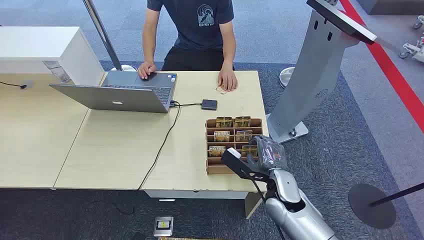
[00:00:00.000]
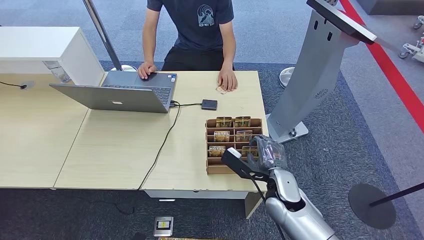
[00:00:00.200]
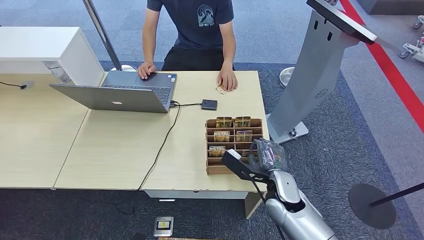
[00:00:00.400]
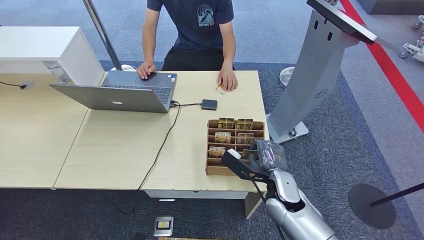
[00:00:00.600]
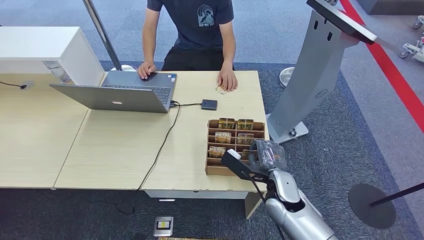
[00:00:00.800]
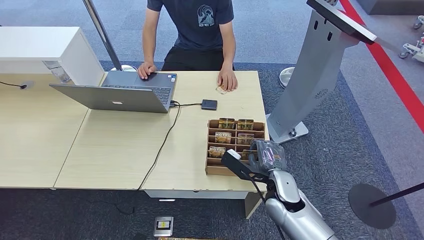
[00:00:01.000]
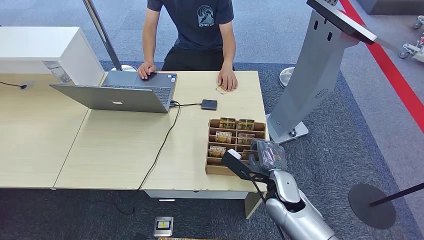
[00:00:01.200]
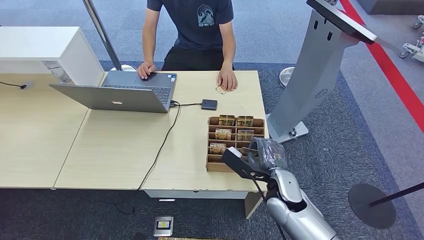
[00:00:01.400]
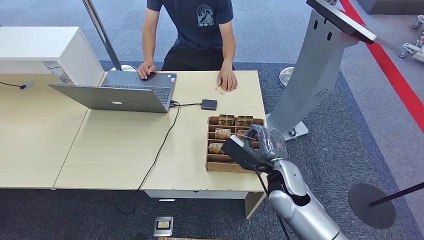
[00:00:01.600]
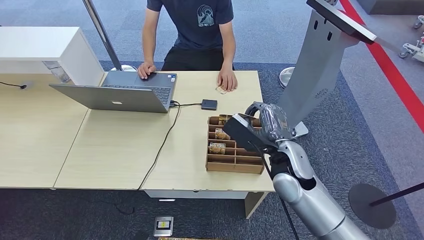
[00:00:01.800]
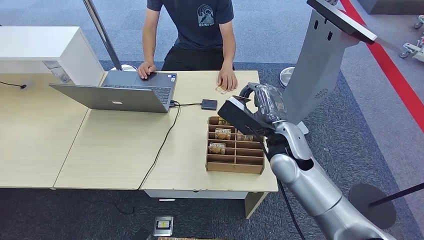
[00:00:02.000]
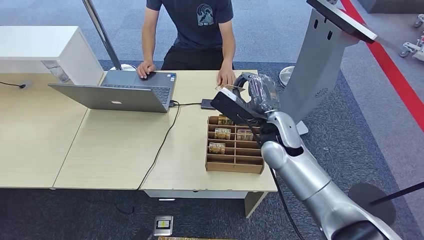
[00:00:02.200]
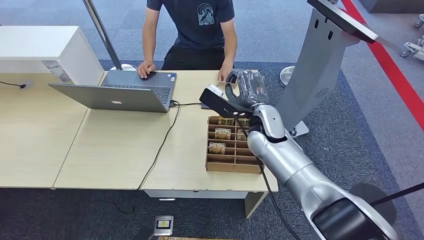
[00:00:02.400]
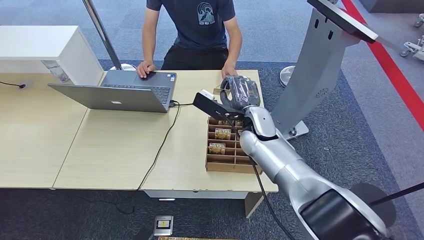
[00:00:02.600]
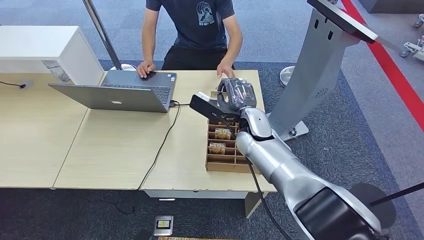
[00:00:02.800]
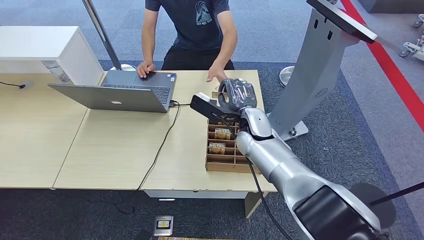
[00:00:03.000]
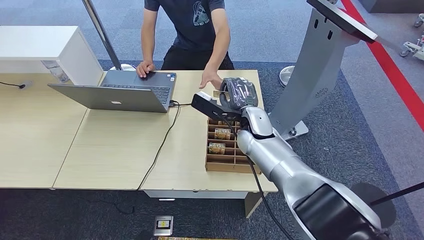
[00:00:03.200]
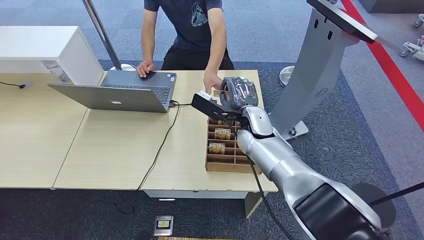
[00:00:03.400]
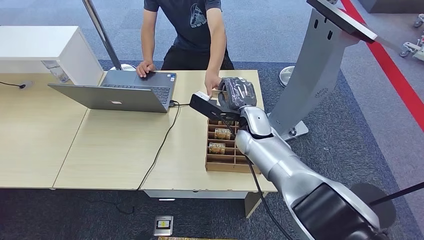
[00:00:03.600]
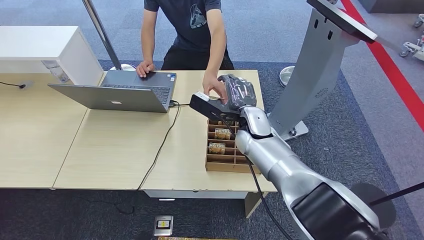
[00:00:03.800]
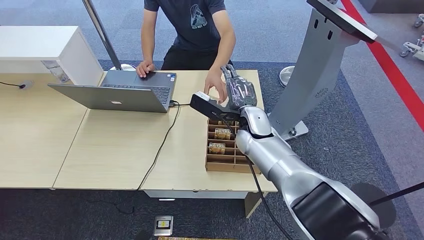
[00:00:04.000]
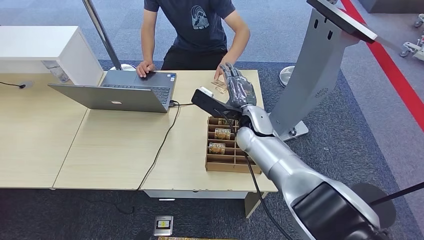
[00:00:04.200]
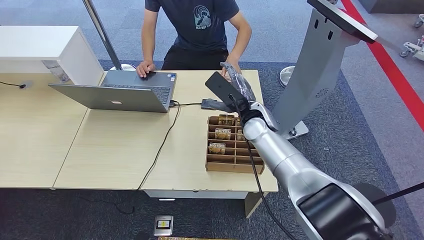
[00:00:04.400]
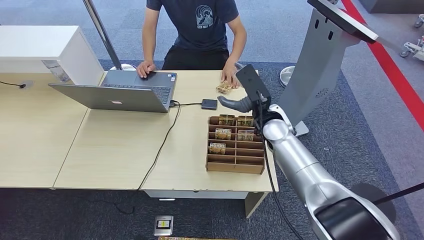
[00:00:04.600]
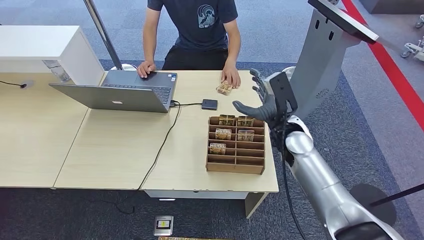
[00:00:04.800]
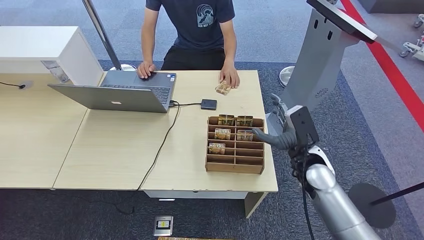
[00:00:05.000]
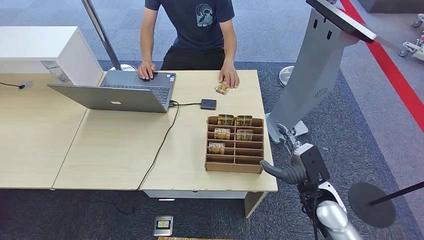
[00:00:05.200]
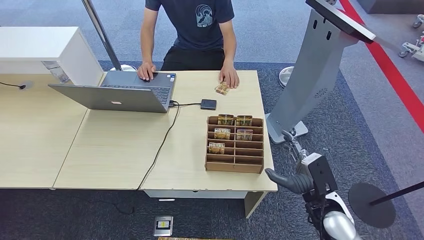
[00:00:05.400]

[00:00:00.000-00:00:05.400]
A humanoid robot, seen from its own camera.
Step, 00:00:00.000 to 00:00:01.800: Pick up the room card from the card holder.
Step, 00:00:02.000 to 00:00:05.400: Hand the room card to the target.
00:00:01.400 to 00:00:02.800: The right hand goes about 10 cm forward and to the left.
00:00:02.800 to 00:00:04.000: Neither hand changes place.
00:00:04.000 to 00:00:05.400: The right hand moves to the right, backward and downward, roughly 25 cm.
